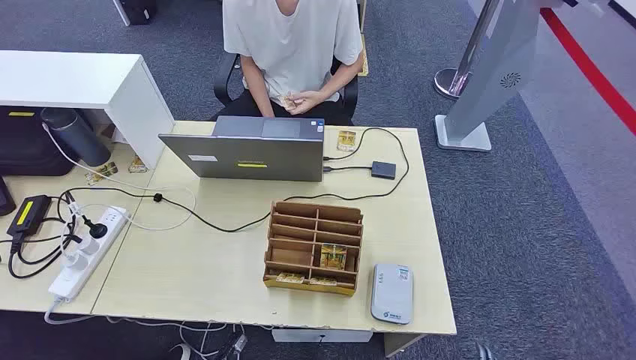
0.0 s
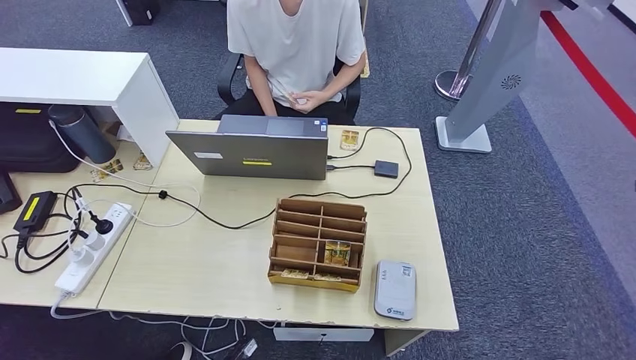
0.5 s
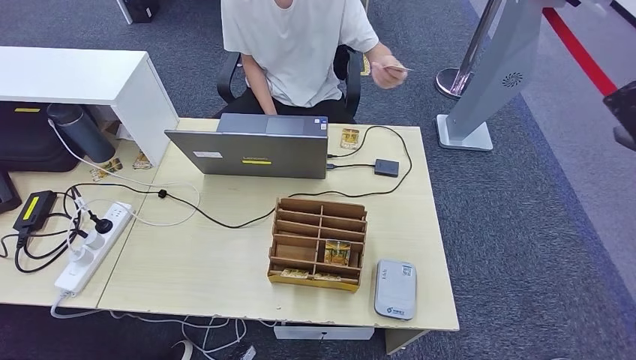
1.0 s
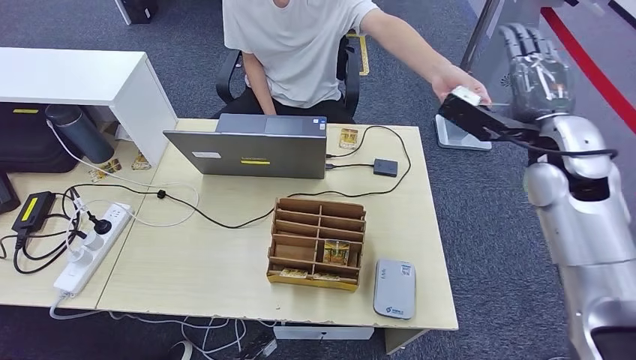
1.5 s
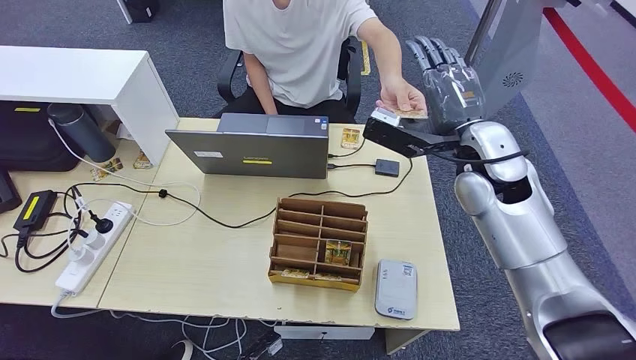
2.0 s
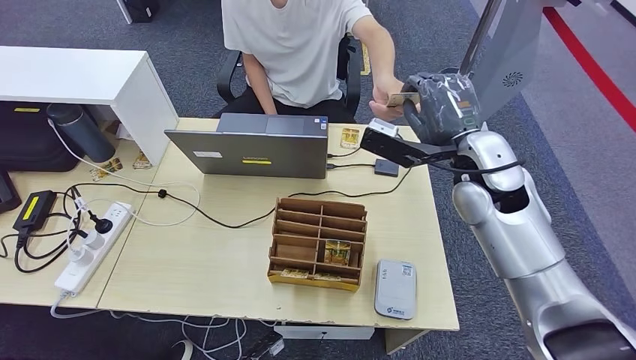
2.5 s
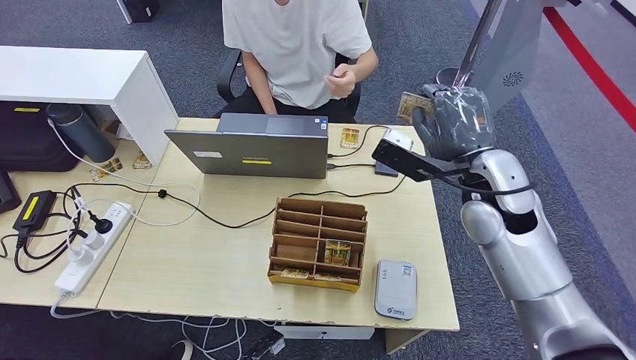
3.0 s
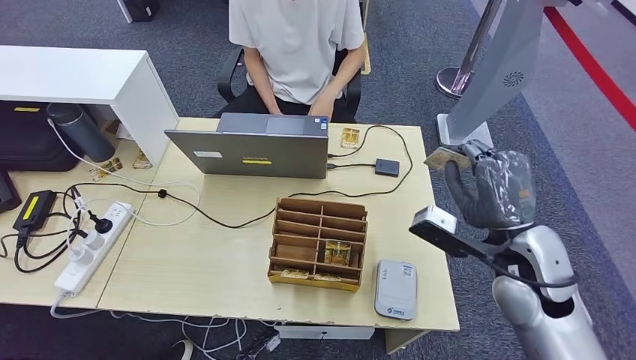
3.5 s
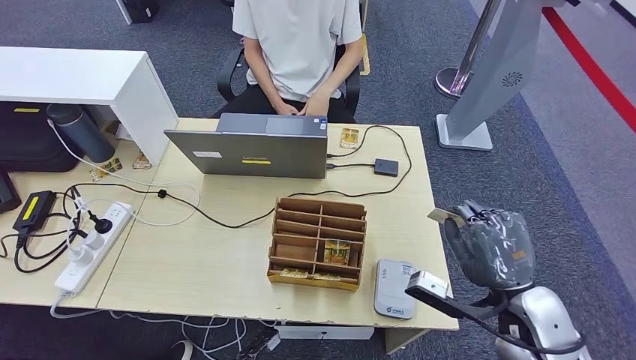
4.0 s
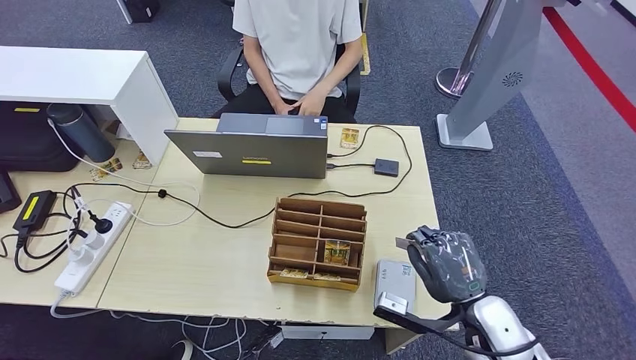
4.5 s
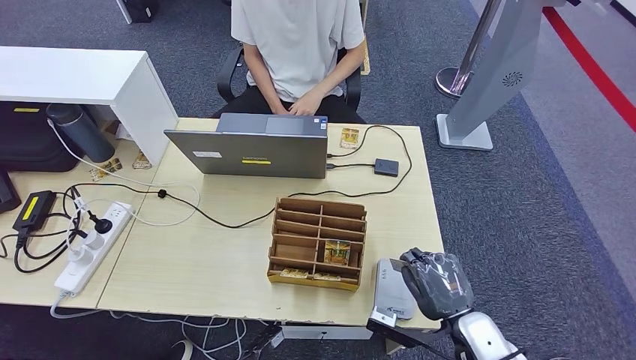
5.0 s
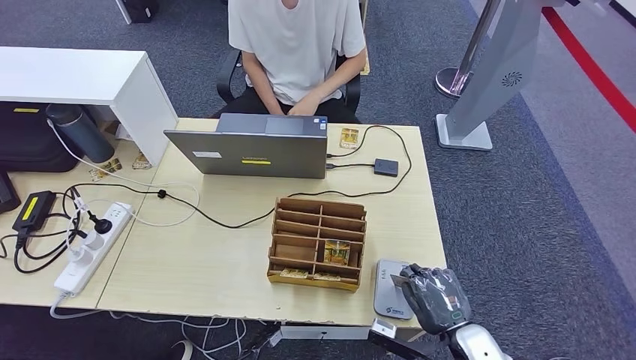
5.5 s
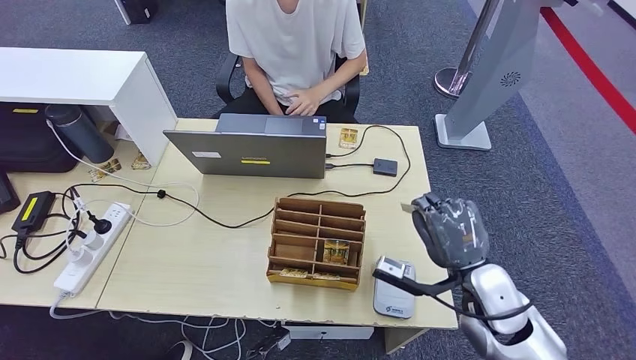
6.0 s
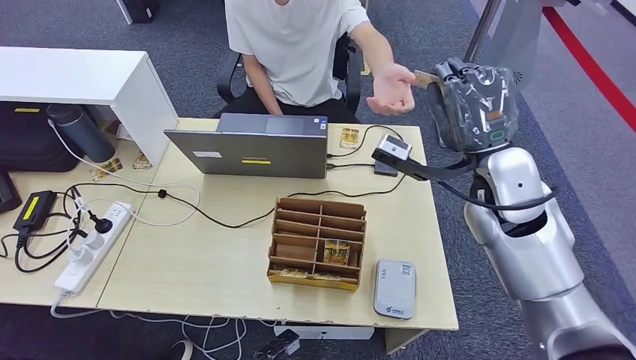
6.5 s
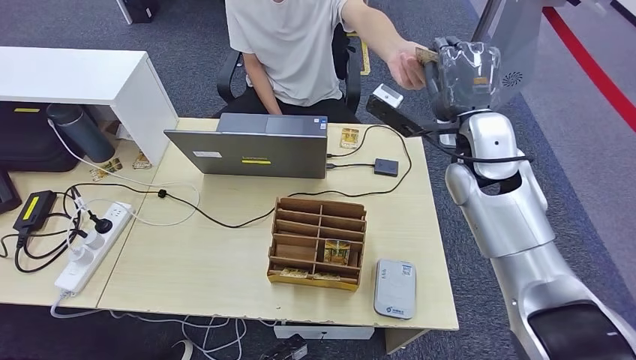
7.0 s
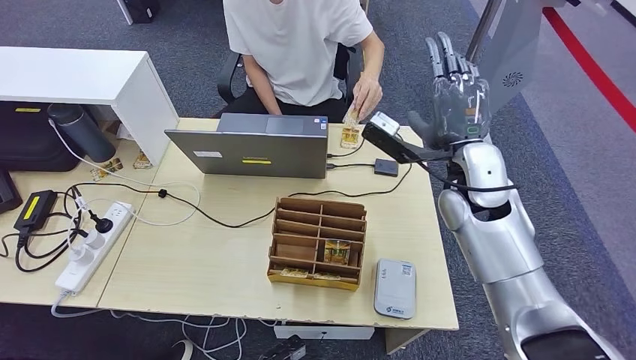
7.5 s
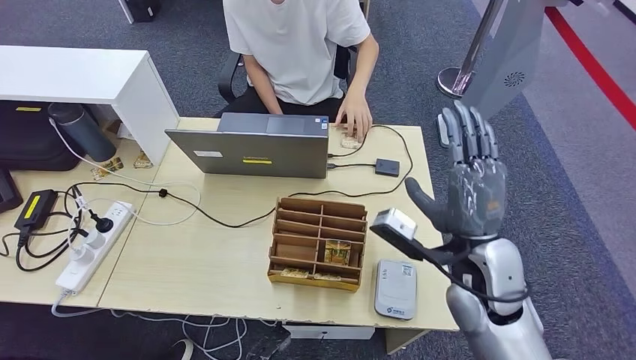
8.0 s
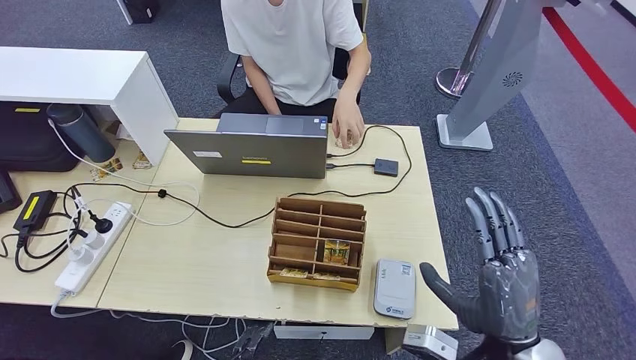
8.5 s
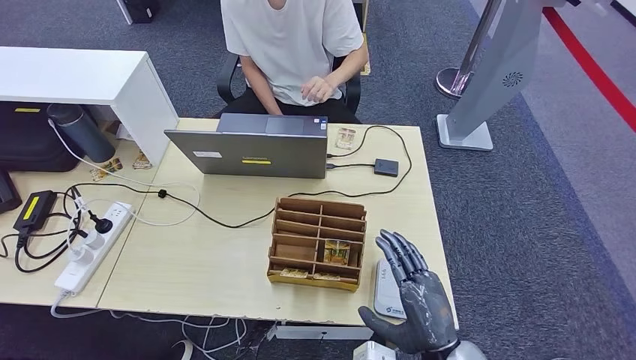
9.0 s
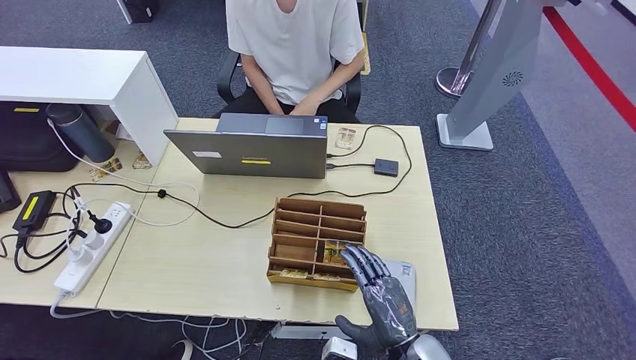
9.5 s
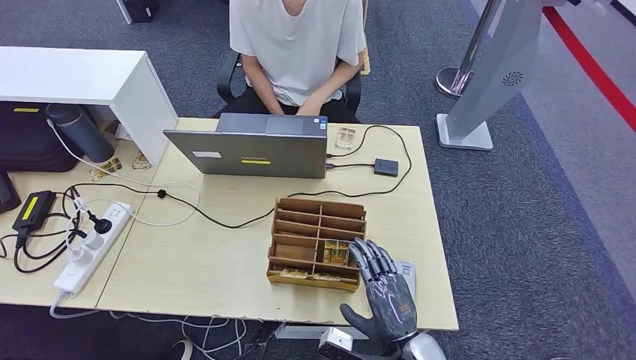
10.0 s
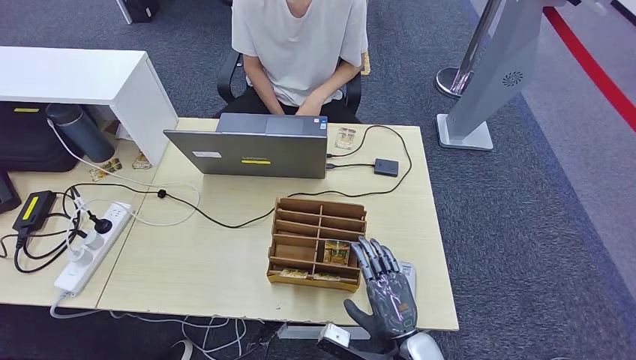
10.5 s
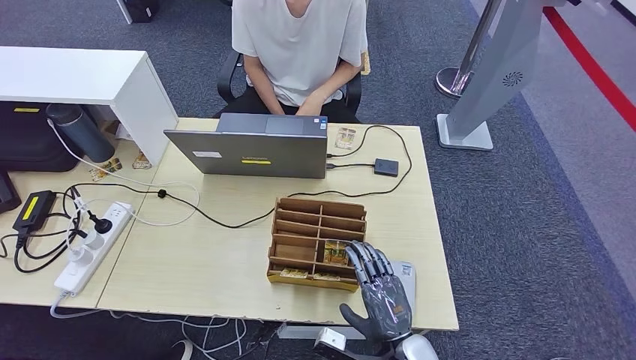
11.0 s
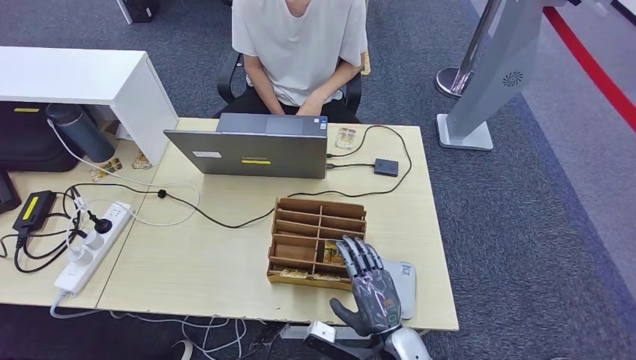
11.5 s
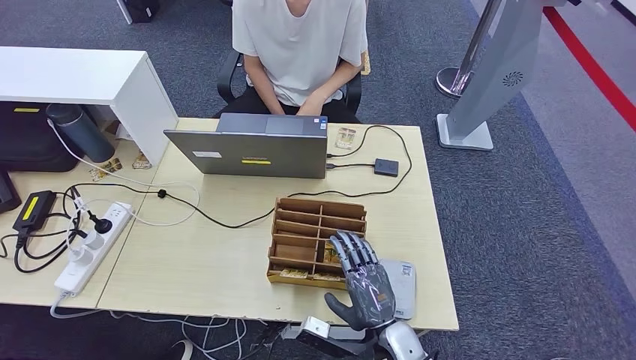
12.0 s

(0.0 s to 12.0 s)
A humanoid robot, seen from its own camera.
Step, 0.0 s - 2.0 s: Take the ID card from the person's hand.
Step, 2.5 s - 6.5 s: Place the ID card on the card reader.
Step, 7.0 s - 9.0 s: Hand the ID card to the person.
2.0 s - 4.0 s: The right hand moves backward and downward, approximately 25 cm.
4.0 s - 6.0 s: The right hand goes downward and returns, about 10 cm each way.
6.0 s - 8.0 s: The right hand moves upward, roughly 5 cm.
8.0 s - 10.0 s: The right hand shifts roughly 20 cm downward and backward.
10.0 s - 12.0 s: There are only small adjustments of the hands.

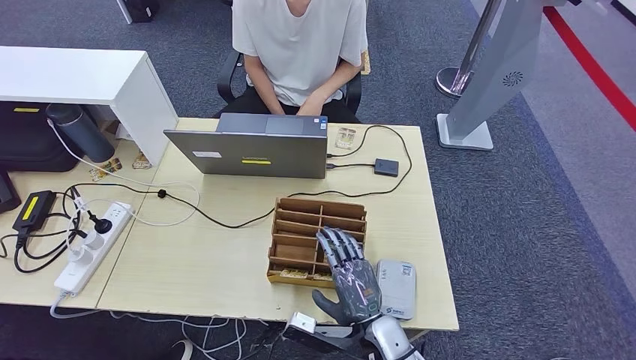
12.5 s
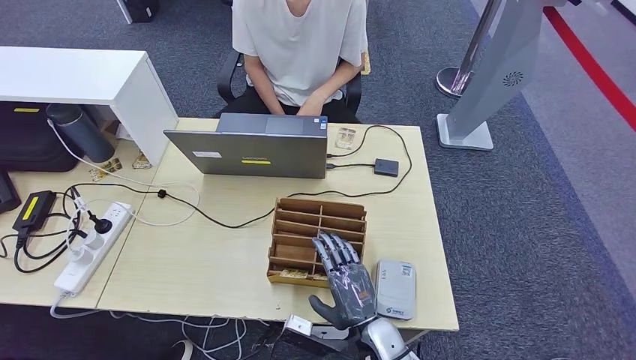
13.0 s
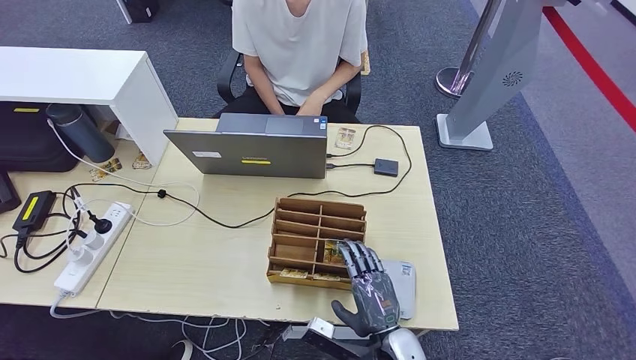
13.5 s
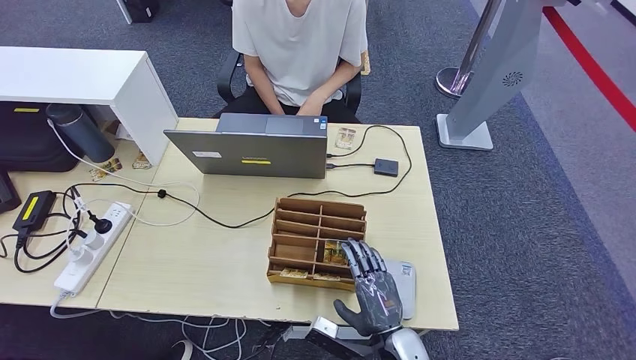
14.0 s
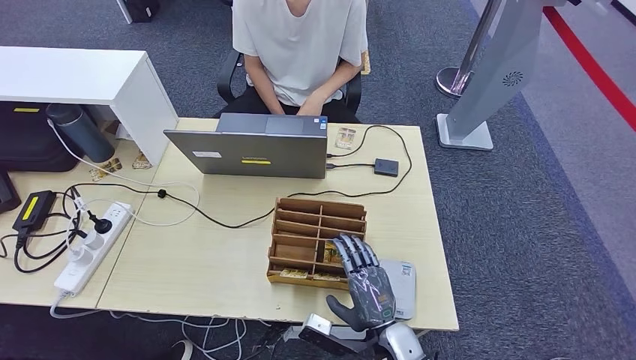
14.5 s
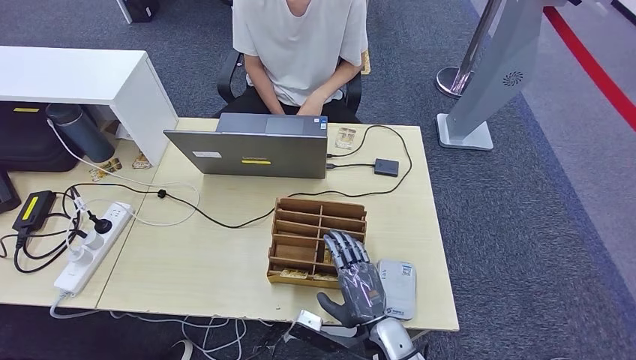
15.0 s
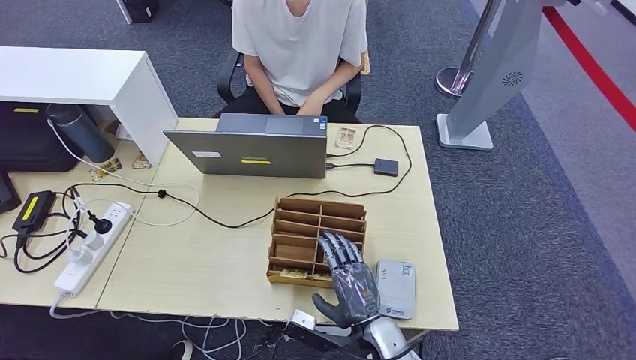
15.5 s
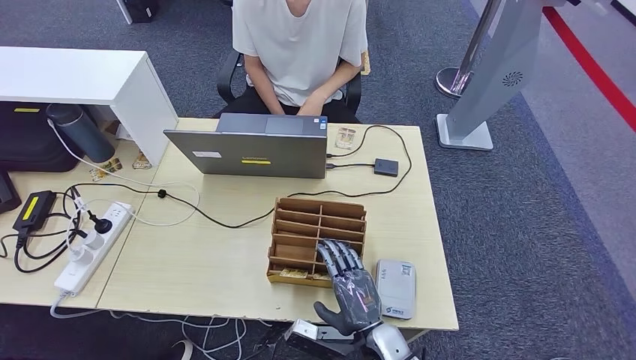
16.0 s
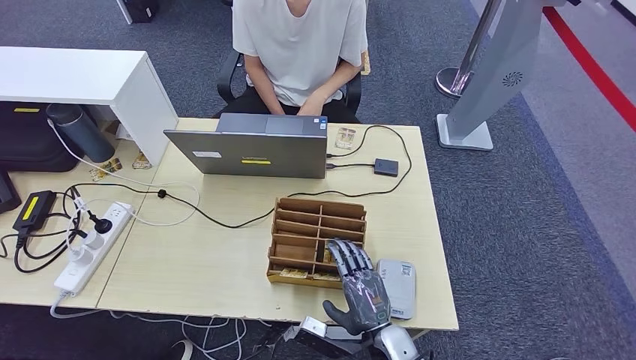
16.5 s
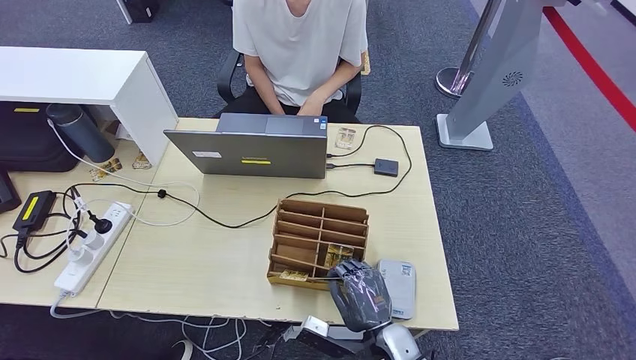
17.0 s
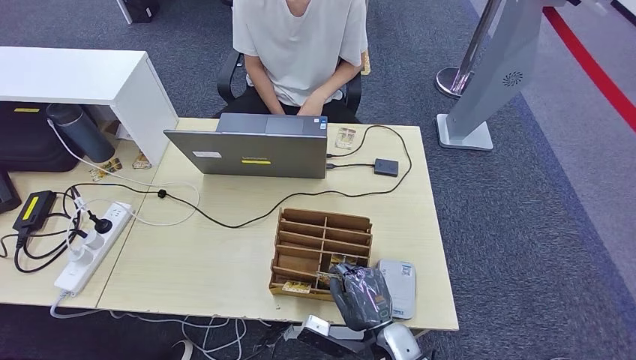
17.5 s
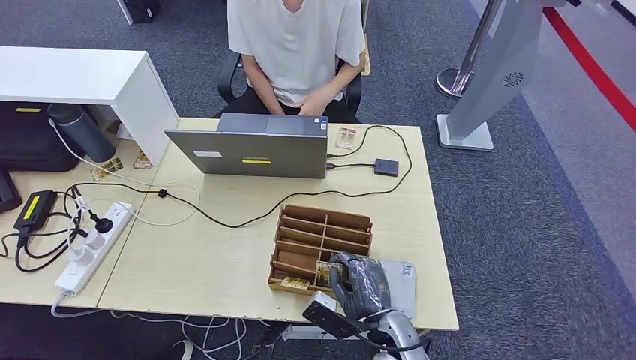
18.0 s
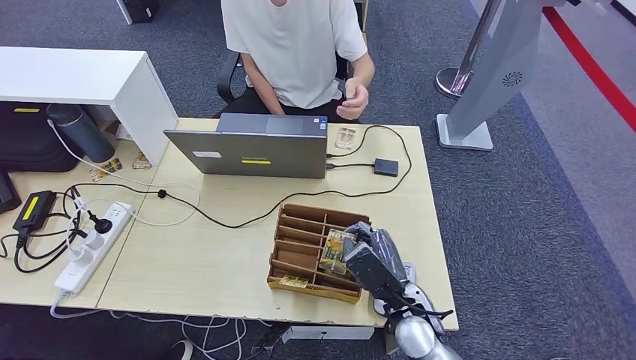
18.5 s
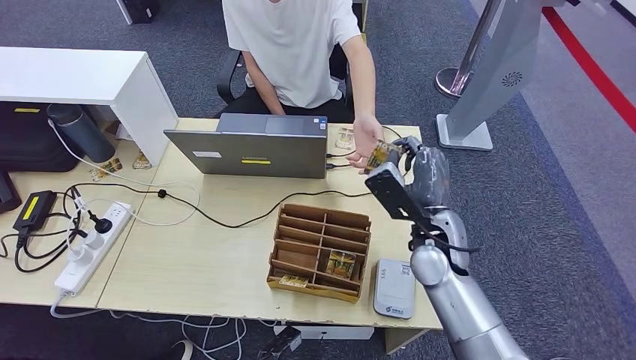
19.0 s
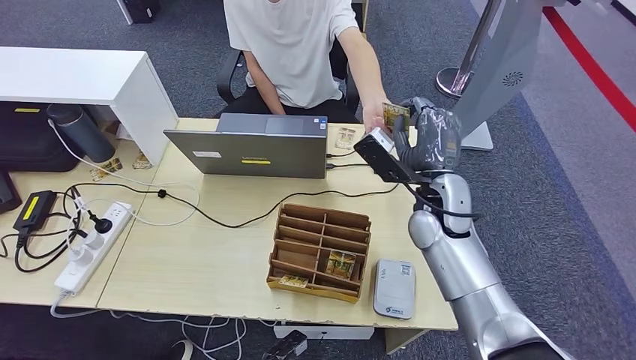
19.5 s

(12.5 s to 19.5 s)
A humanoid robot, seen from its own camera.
Step, 12.5 s - 17.0 s: Pick up the room key from the key card box.
Step, 17.5 s - 19.5 s: Hand the room key to the person.
12.5 s - 17.5 s: There are only small adjustments of the hands.
17.5 s - 19.5 s: The right hand moves forward and upward, some 25 cm.

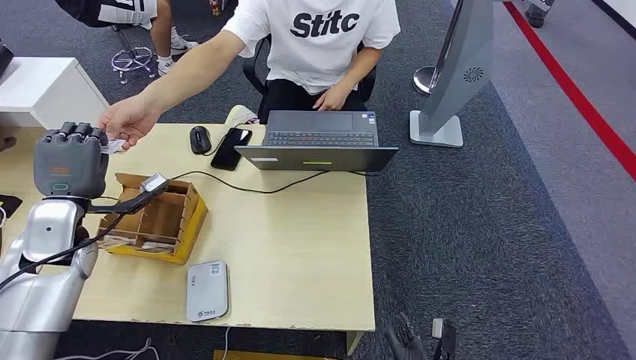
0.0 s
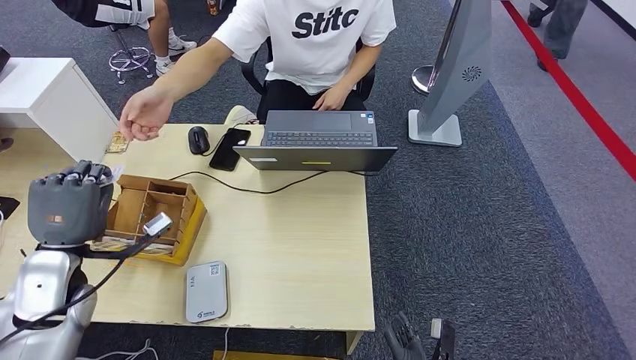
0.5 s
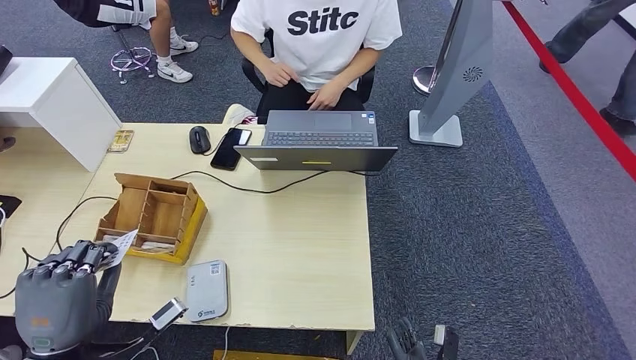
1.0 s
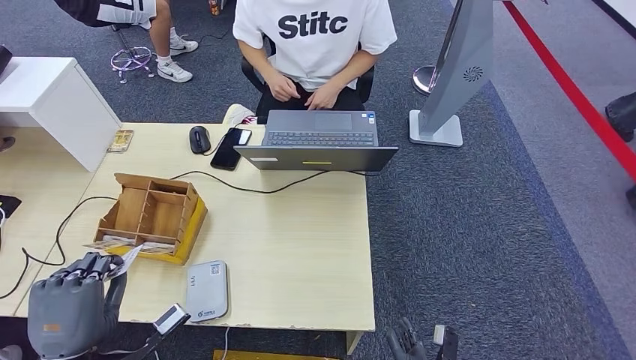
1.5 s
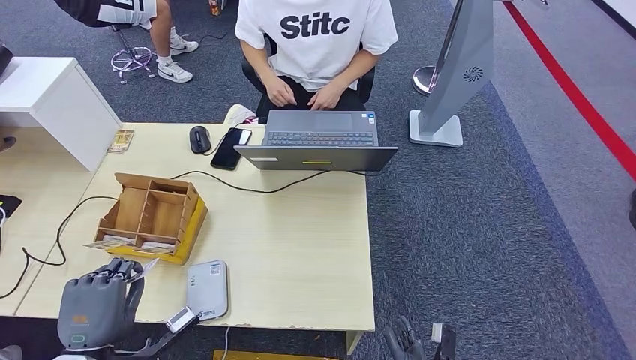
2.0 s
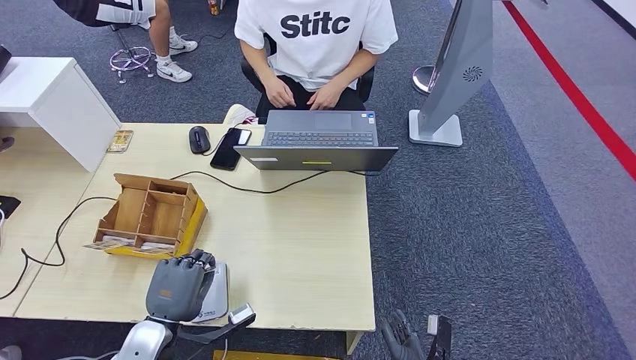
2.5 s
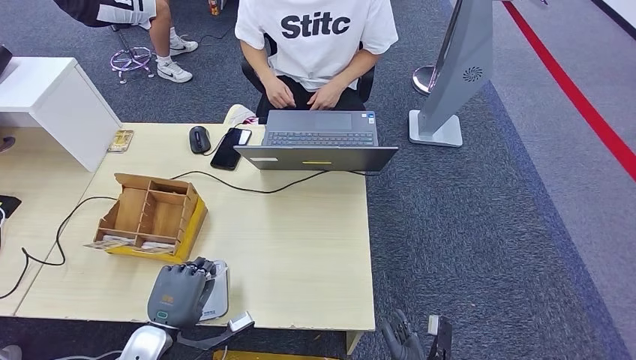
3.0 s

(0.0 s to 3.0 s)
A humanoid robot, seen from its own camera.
Step, 0.0 s - 1.0 s: Take the ID card from the person's hand.
1.5 s - 3.0 s: The left hand shifts about 10 cm downward, to the right and forward.
